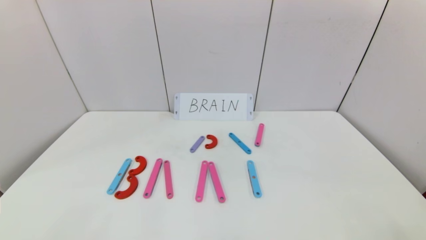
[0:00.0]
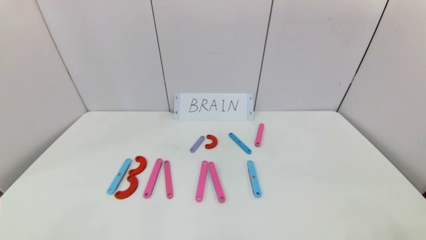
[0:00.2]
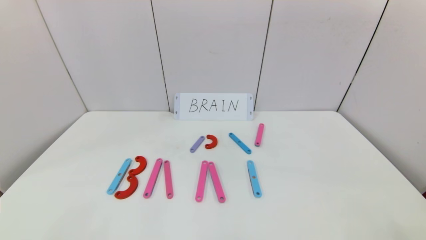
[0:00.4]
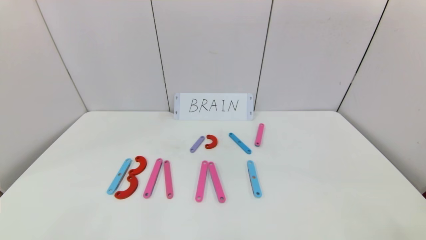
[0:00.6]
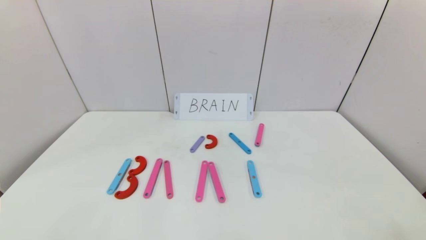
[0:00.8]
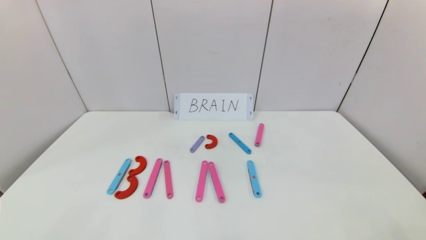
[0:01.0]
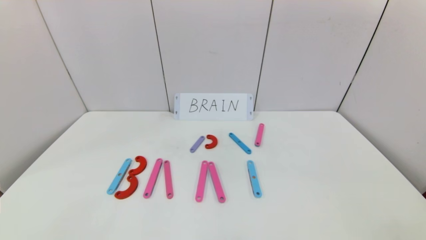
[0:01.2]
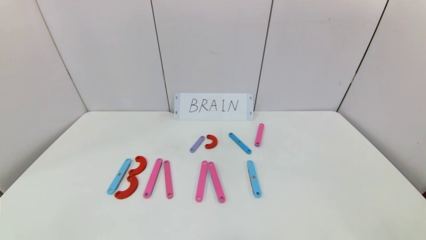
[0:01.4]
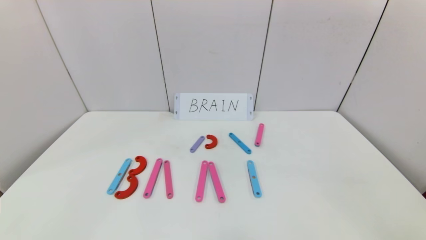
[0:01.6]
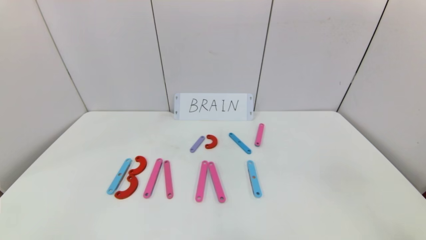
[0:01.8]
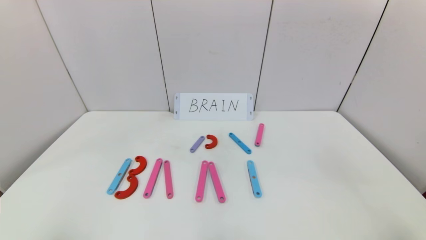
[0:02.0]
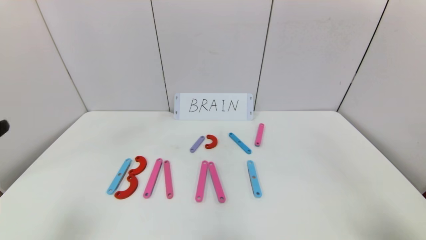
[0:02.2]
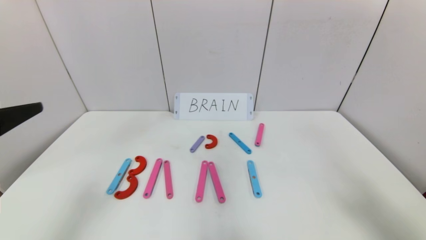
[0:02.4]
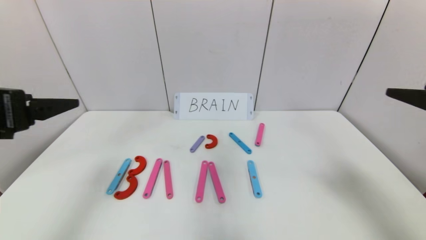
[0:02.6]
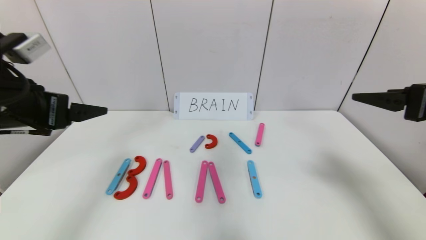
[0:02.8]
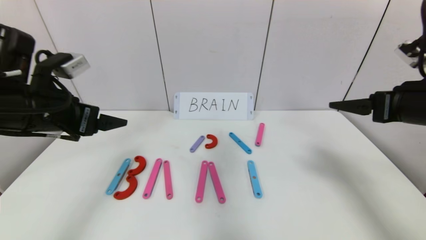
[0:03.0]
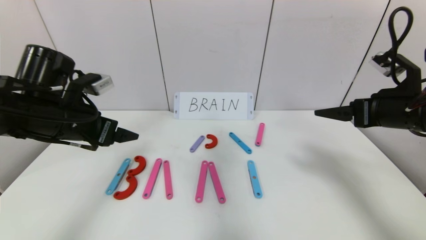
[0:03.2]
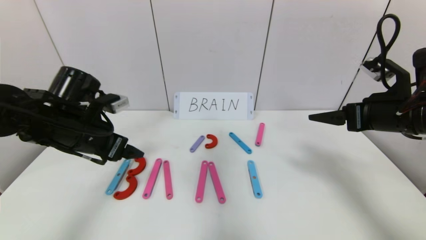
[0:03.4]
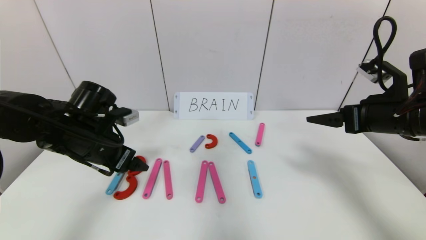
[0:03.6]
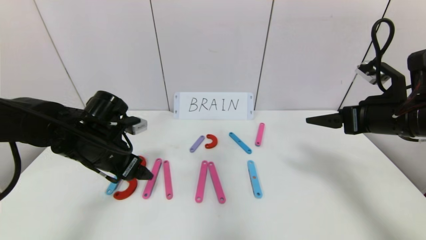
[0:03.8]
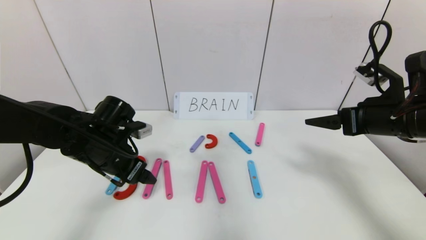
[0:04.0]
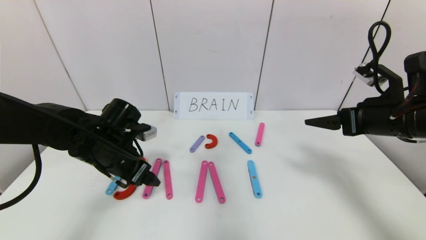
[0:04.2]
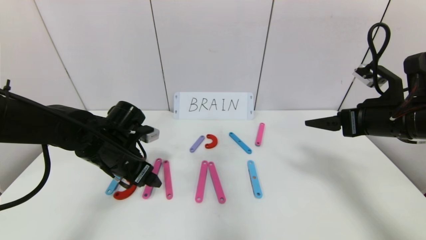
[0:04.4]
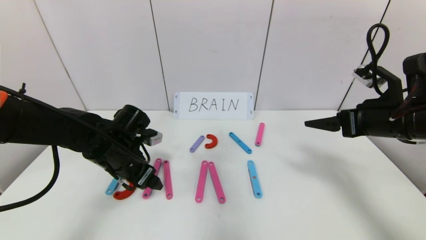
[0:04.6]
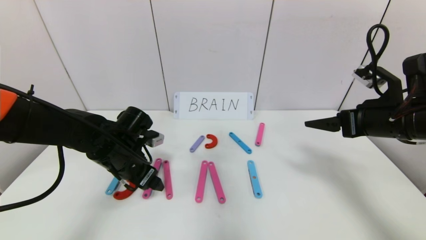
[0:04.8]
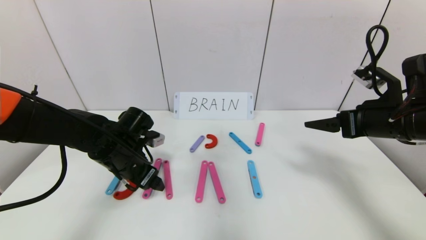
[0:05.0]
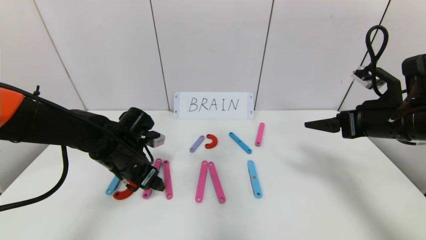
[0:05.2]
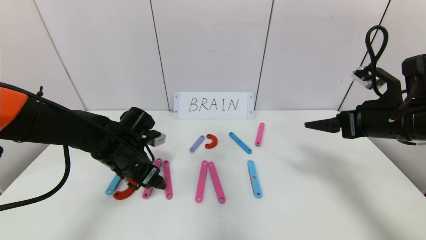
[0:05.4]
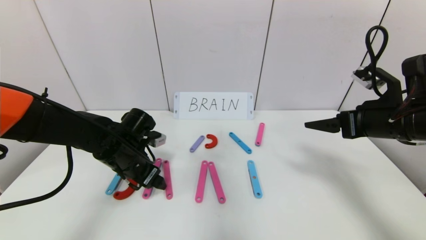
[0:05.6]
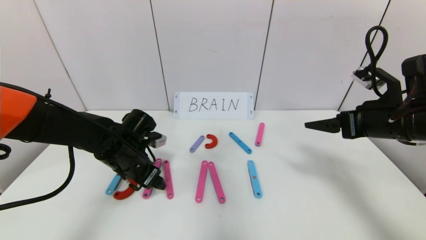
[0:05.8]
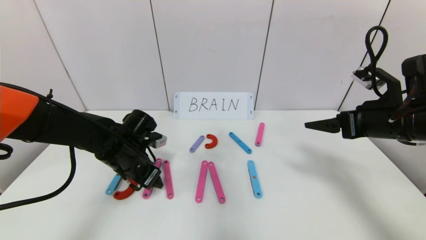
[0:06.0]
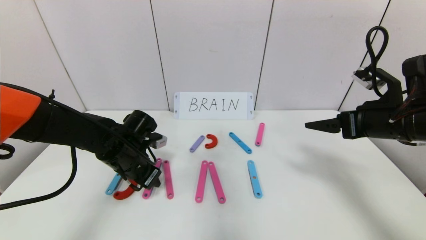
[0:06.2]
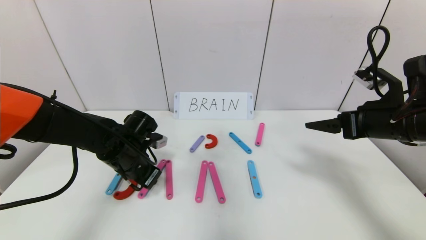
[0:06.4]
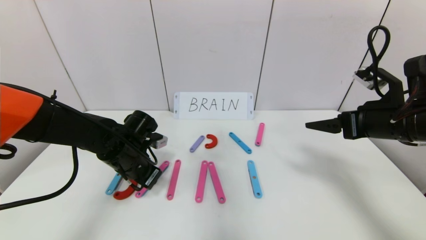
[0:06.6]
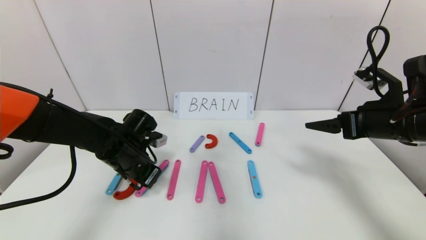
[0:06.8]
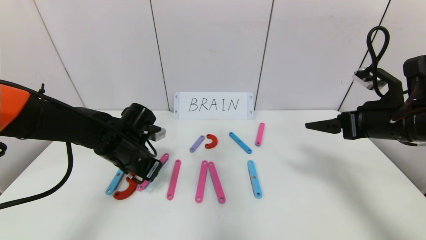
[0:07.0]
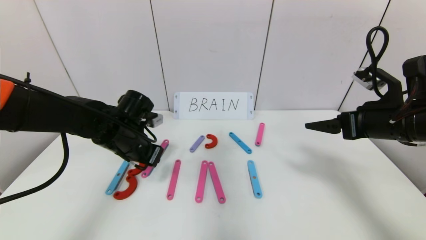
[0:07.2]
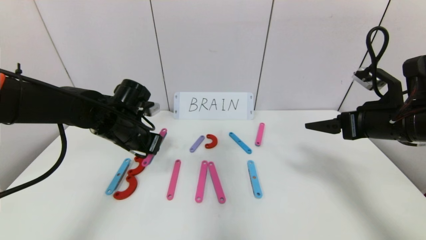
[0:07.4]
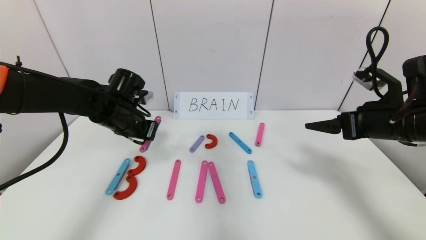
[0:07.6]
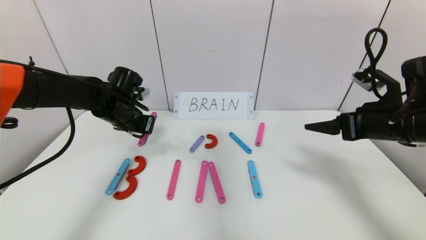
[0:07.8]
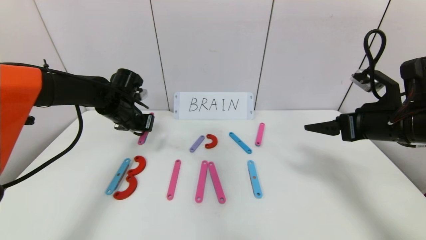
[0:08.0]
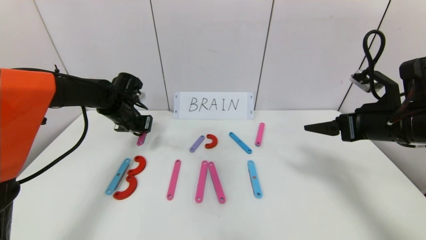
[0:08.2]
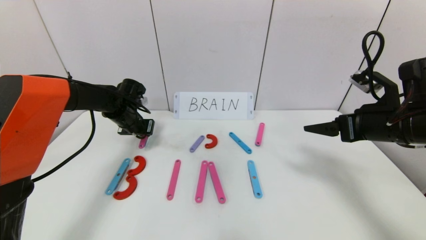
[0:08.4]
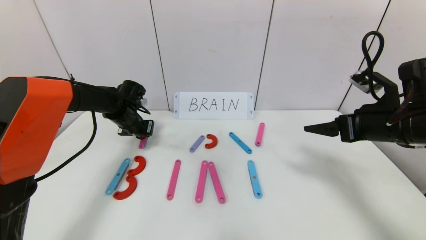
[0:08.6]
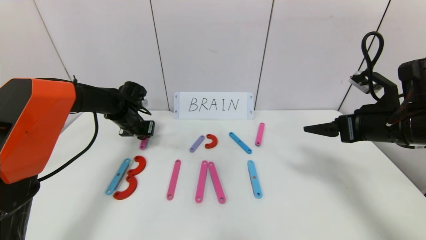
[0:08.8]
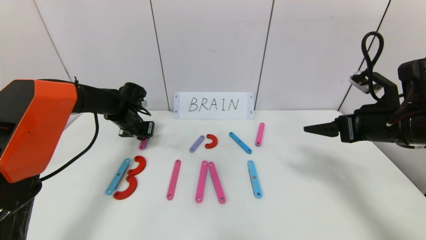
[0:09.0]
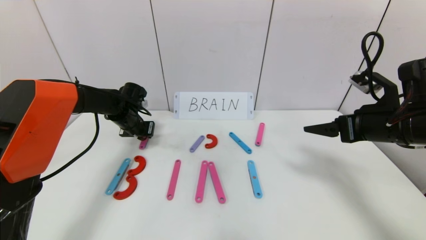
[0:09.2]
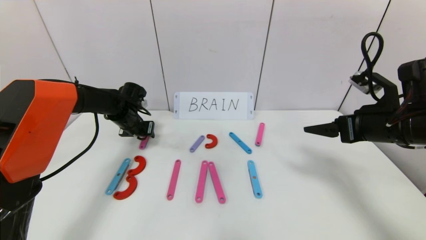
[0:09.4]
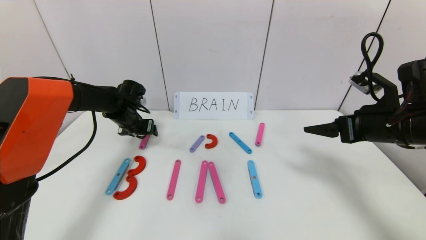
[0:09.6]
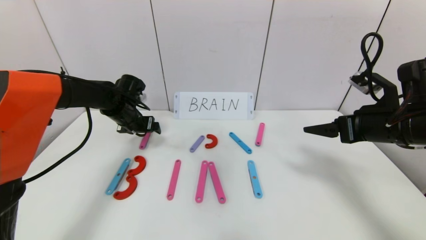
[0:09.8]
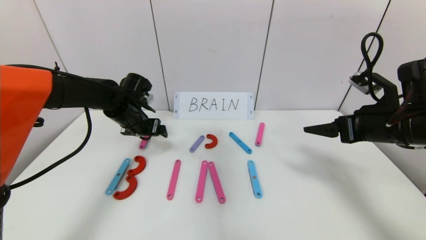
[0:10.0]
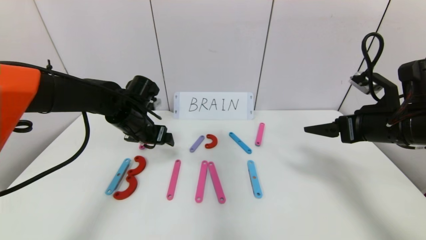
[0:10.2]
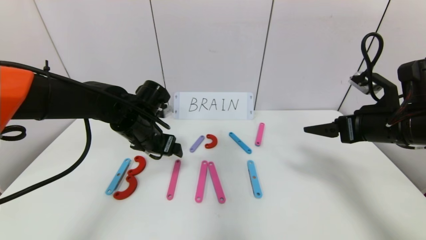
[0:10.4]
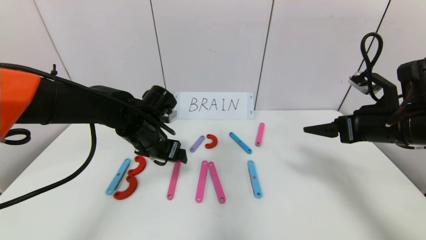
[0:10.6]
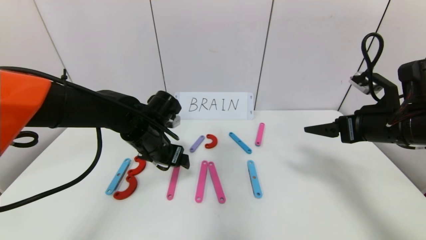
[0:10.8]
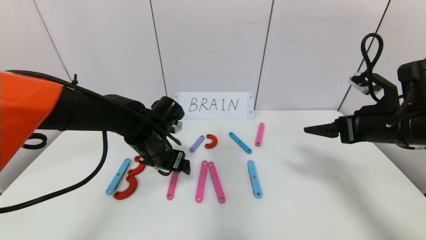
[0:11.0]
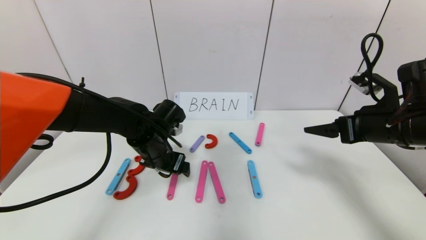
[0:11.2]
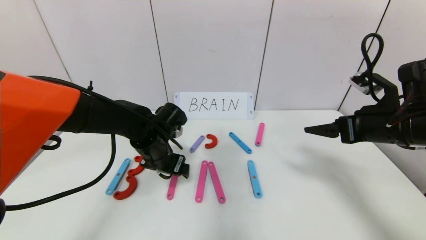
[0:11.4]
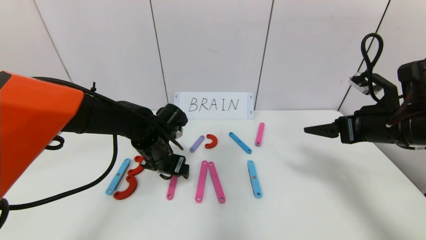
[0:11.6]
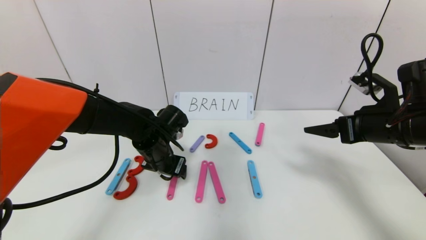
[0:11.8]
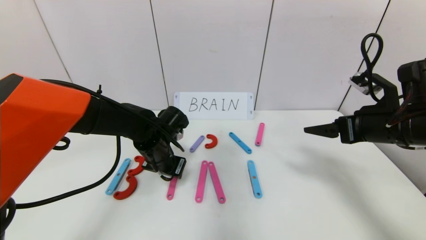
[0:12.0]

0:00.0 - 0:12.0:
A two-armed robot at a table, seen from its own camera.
Task of the whole recording: rearrange the word baai as brain.
0:01.6 - 0:03.0: The right gripper moves forward, approximately 25 cm, while the left gripper travels forward and upward by some 30 cm.
0:03.0 - 0:04.4: The left gripper goes roughly 15 cm downward, to the right and forward.
0:04.4 - 0:06.0: The grippers move only a little.
0:06.0 - 0:07.6: The left gripper heads upward and forward, covering roughly 10 cm, and closes up.
0:07.6 - 0:09.0: The left gripper shifts some 10 cm forward and downward.
0:09.0 - 0:10.4: The left gripper travels backward and to the right by about 15 cm, and opens up.
0:10.4 - 0:12.0: The left gripper is displaced downward by approximately 5 cm, and closes up.

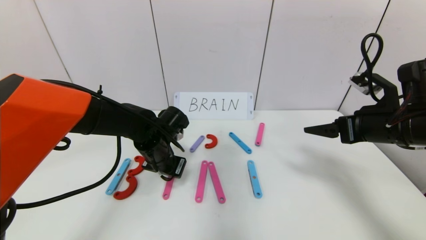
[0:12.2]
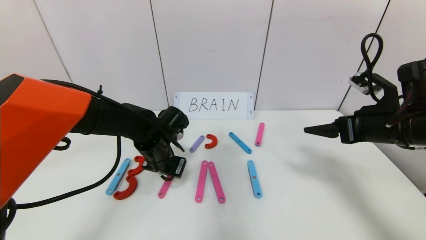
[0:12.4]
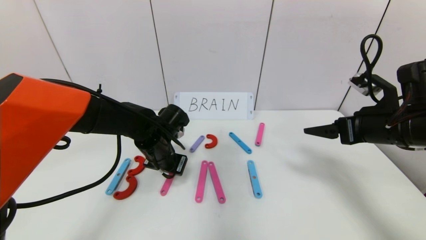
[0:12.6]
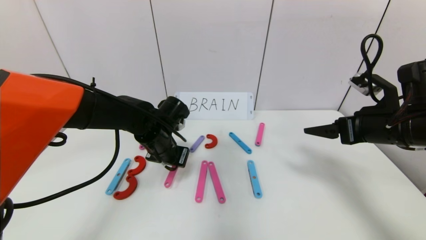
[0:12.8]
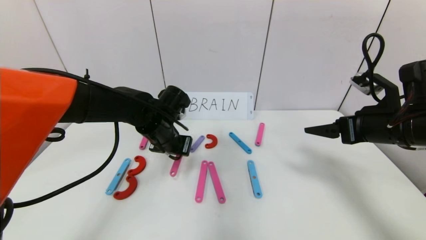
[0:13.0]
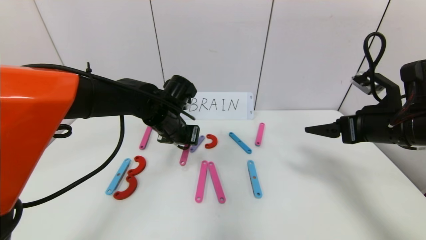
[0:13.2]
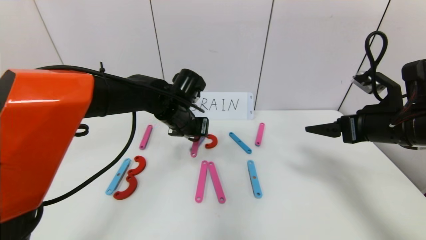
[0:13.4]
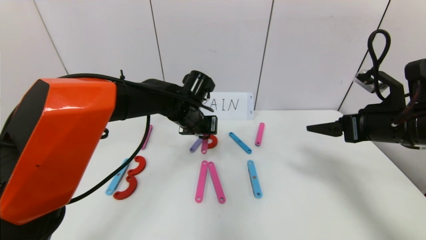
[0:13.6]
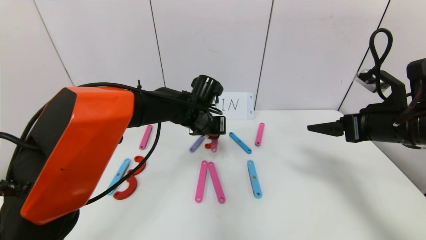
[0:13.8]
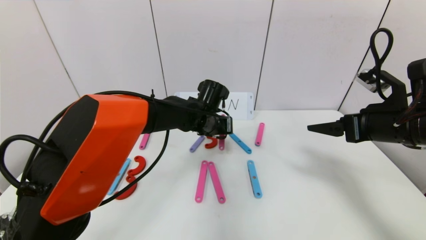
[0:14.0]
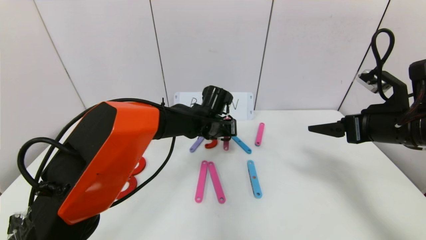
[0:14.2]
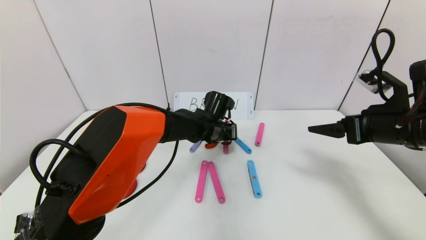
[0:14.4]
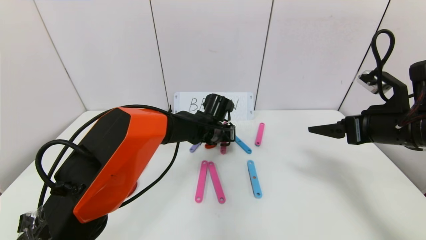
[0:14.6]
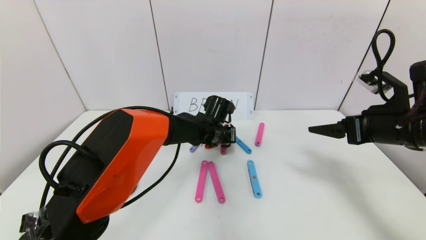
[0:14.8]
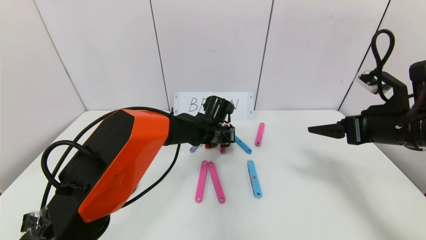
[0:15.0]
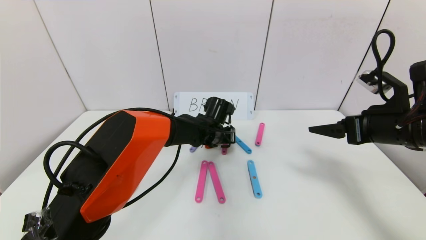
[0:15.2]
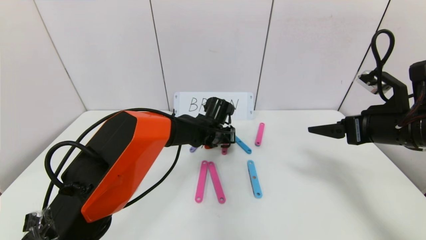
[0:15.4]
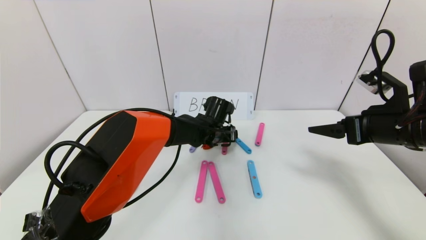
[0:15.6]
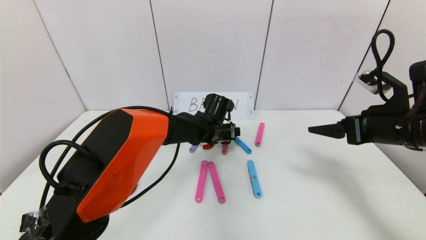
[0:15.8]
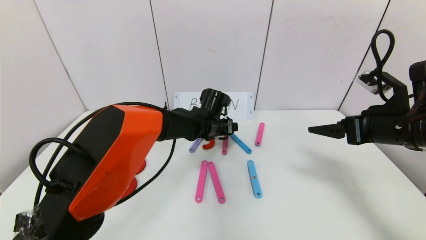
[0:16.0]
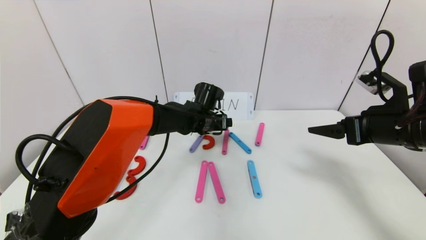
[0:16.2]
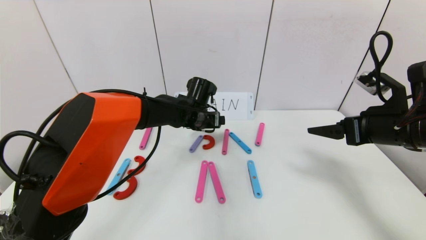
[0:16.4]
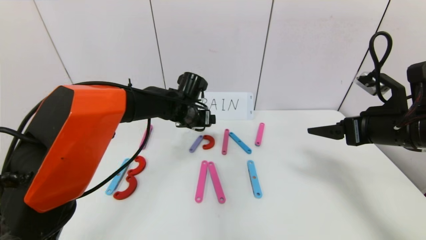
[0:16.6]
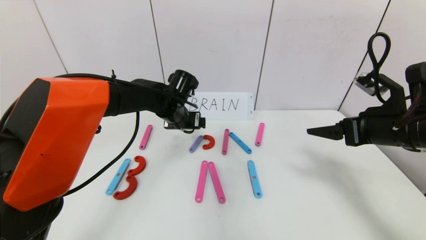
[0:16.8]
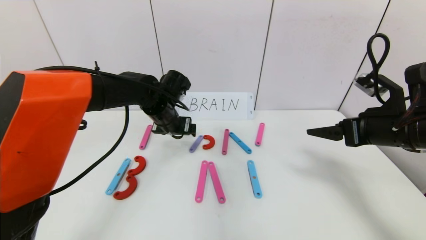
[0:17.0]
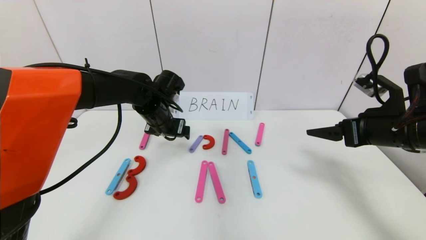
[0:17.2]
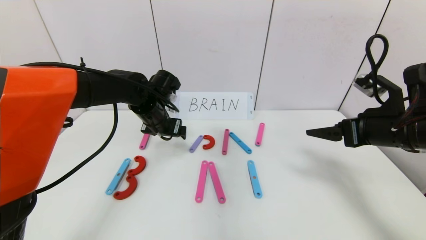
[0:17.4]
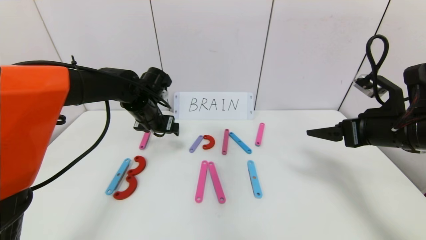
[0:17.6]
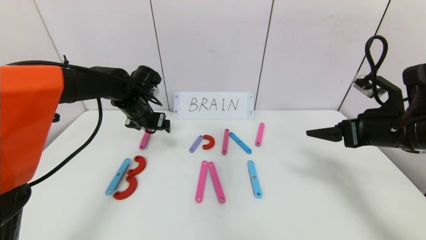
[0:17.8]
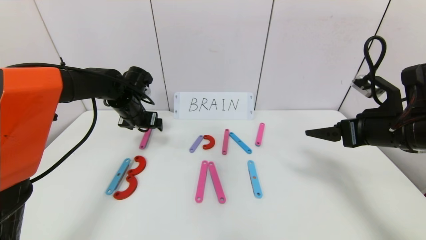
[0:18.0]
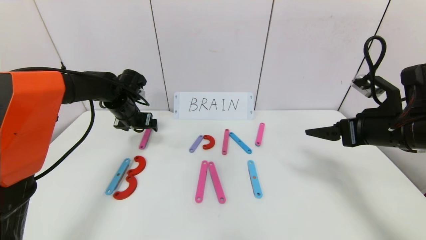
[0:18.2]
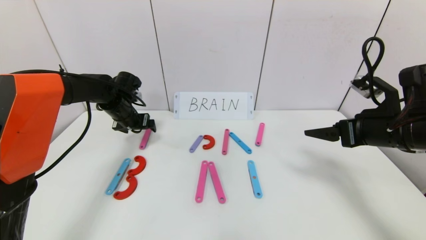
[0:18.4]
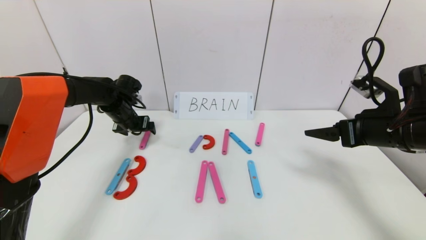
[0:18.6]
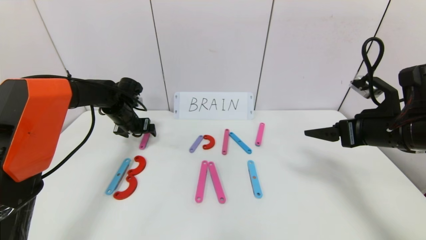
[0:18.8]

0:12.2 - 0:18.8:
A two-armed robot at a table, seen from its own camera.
Task of the whole recording: rearrange the word baai as brain.
Step, 0:12.2 - 0:16.0: Disassemble the second character A.
0:12.2 - 0:13.8: The left gripper shifts approximately 10 cm to the right and forward.
0:13.8 - 0:15.4: The left gripper heads downward, covering some 5 cm, and opens.
0:15.4 - 0:17.2: The left gripper heads to the left and upward, covering some 15 cm, and opens its fingers.
0:17.2 - 0:18.8: The left gripper is displaced to the left and forward by about 15 cm.
